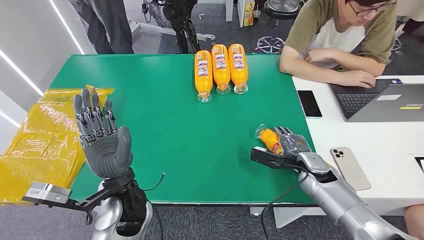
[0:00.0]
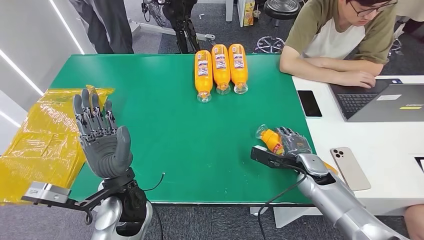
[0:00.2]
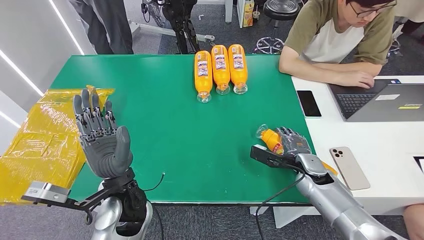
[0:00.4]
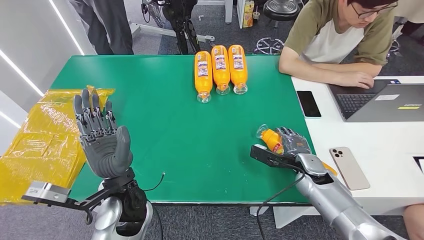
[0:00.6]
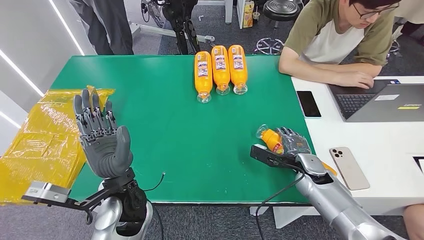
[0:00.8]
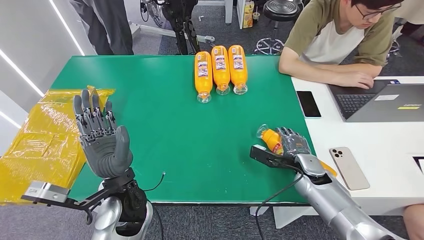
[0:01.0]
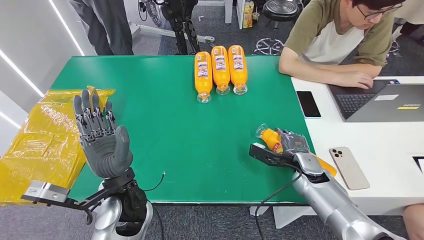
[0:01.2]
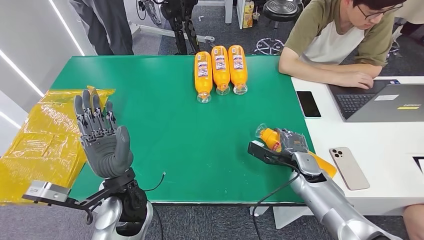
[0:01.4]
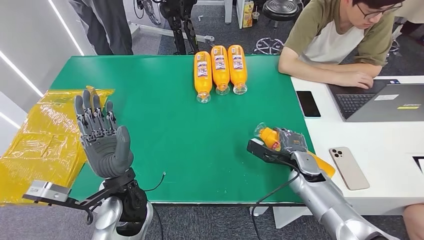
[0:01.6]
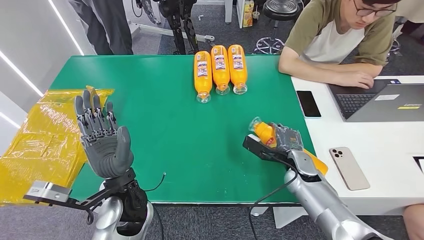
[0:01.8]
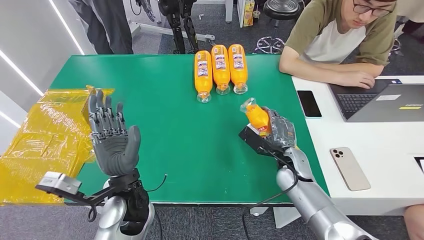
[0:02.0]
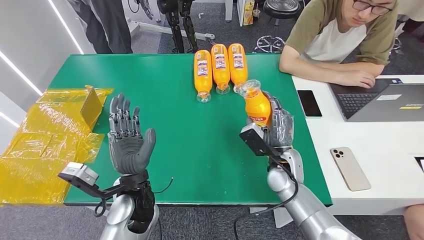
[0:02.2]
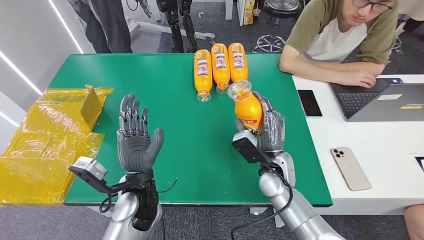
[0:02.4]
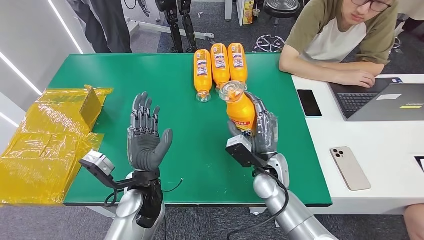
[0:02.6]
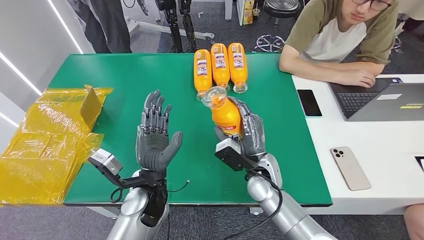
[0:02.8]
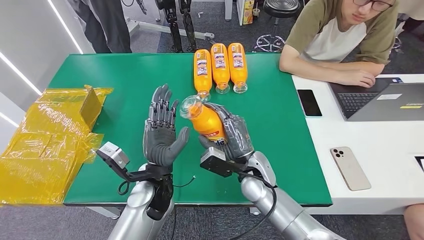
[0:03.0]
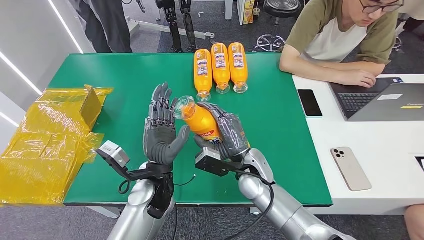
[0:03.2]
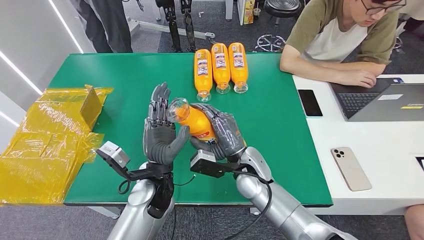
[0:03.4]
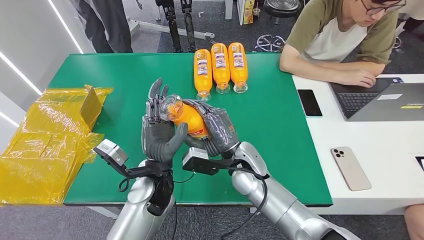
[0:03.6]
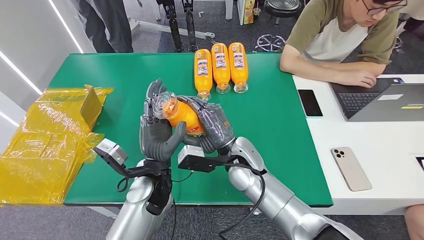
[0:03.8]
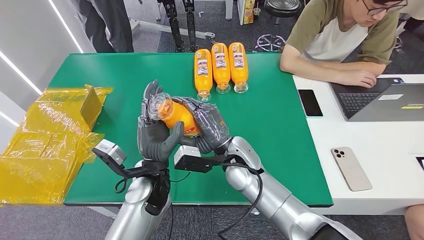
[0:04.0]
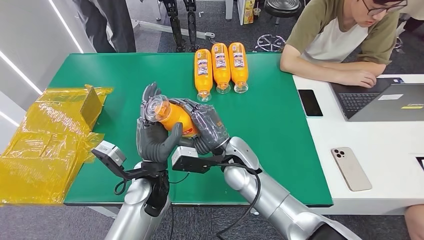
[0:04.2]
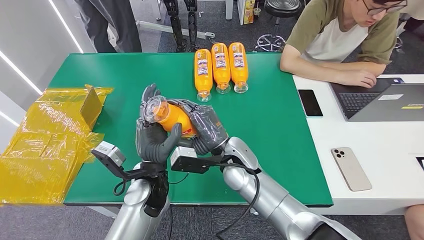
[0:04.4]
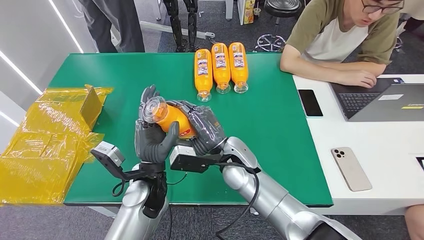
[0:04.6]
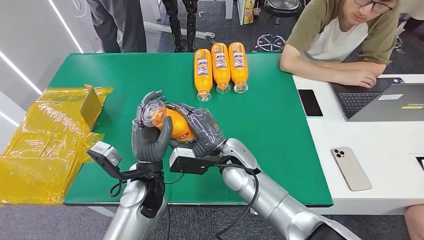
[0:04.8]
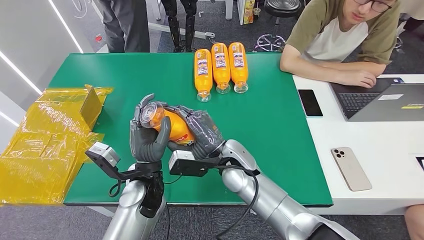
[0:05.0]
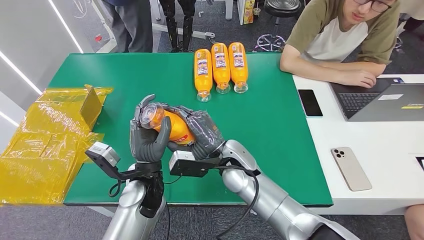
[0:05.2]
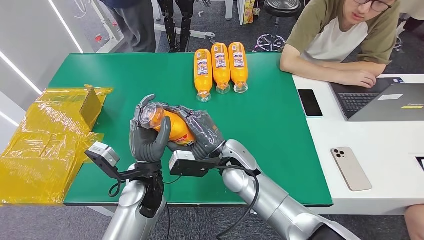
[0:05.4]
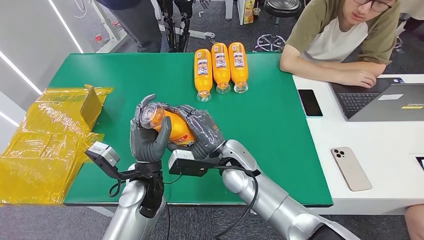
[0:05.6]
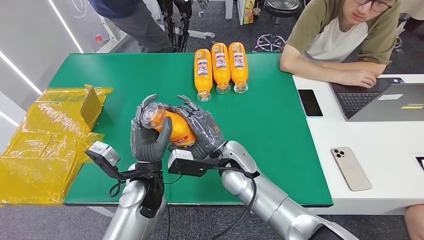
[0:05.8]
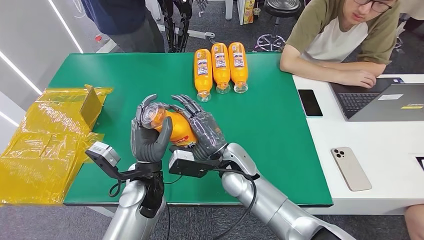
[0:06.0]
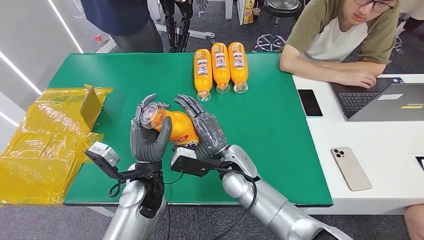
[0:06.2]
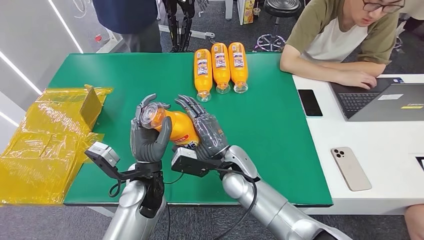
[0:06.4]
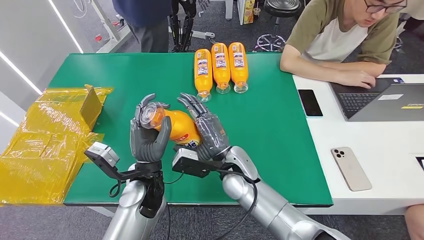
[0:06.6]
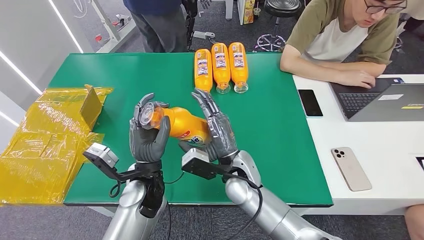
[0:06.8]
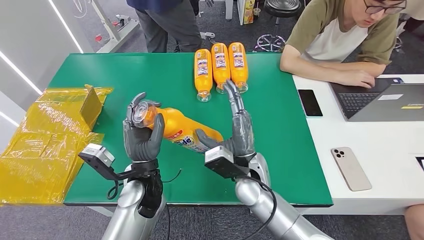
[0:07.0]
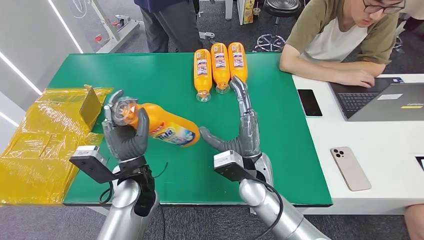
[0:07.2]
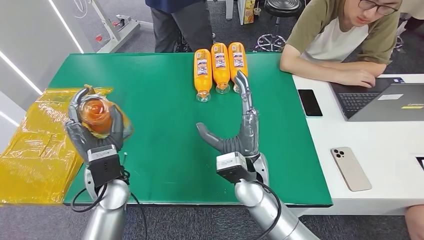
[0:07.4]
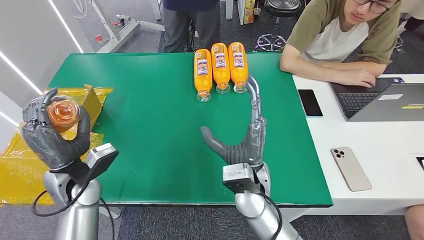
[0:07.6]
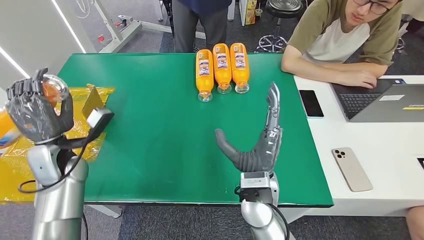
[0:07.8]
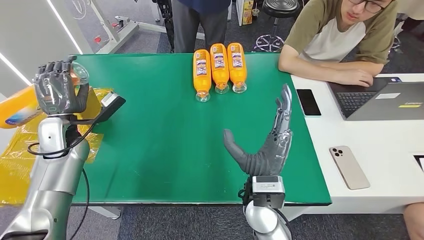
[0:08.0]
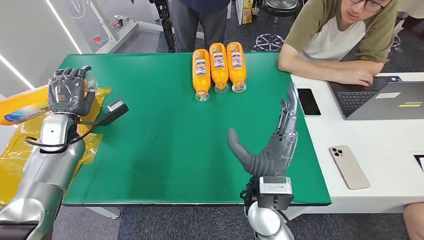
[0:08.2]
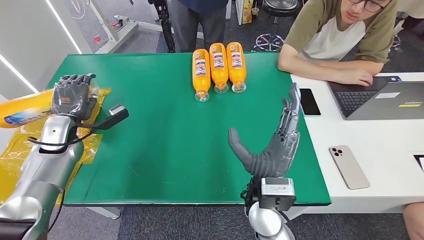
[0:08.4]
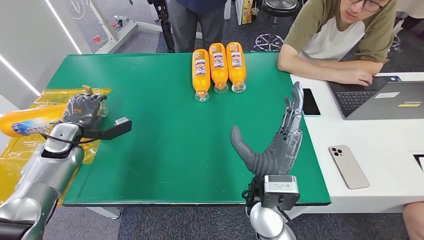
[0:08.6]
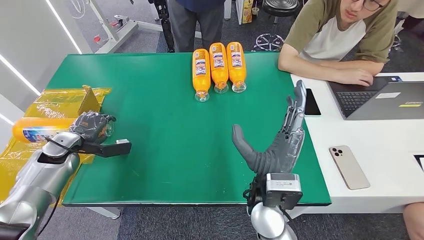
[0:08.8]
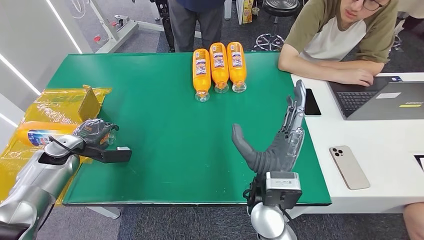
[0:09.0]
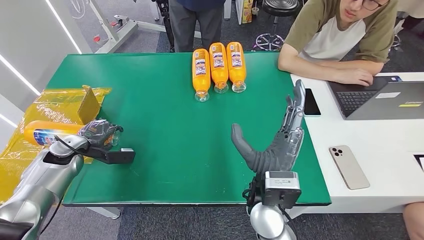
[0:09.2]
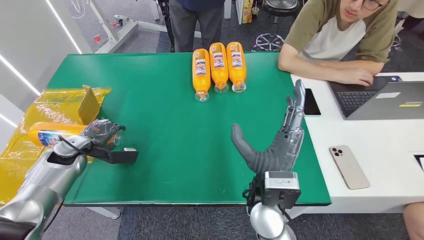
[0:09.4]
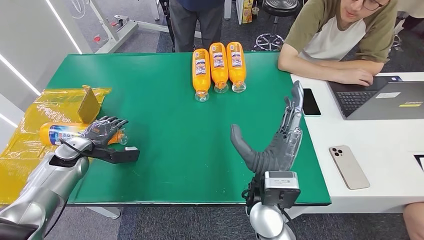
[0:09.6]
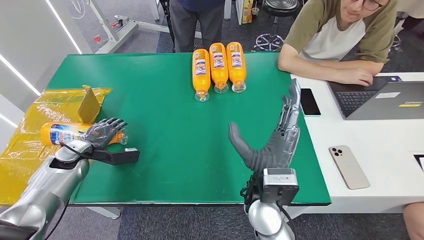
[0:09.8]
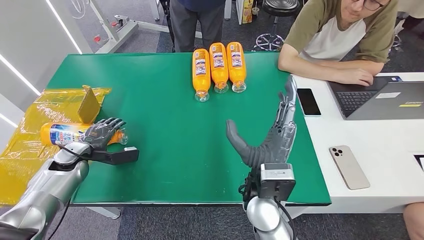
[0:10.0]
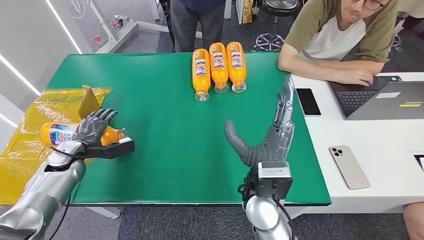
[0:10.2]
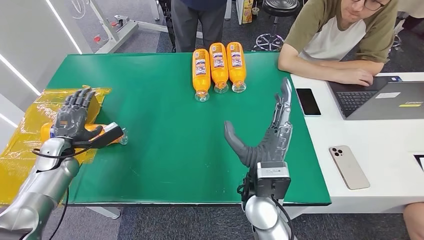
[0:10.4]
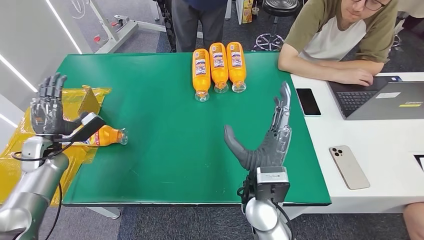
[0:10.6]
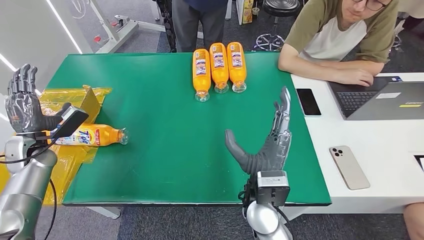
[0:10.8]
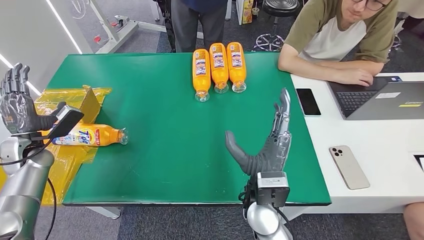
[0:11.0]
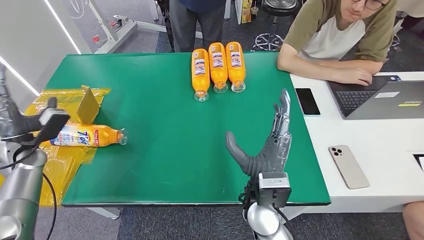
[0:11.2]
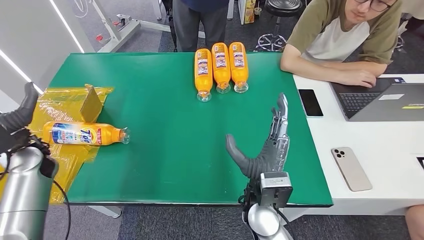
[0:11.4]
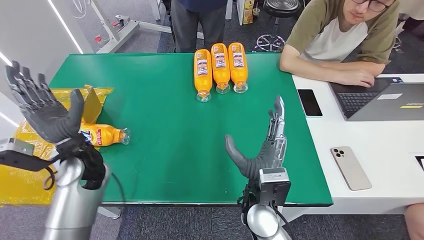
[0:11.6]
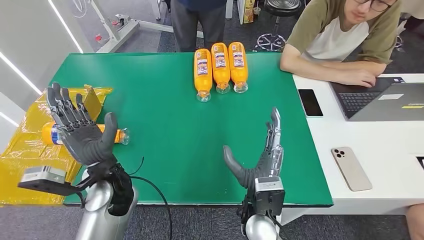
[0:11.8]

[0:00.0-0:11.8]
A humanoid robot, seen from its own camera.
Step, 0:00.0 to 0:03.0: Pick up the bottle from the table.
Step, 0:03.4 to 0:11.6: Turn the bottle to the front side.
0:03.0 to 0:04.4: The right hand shifts approximately 5 cm to the left.
0:04.4 to 0:06.0: There are only small adjustments of the hands.
